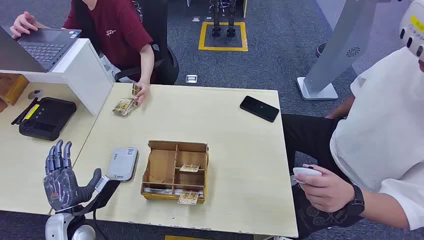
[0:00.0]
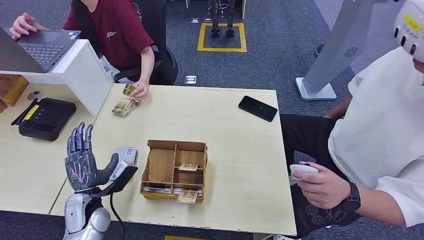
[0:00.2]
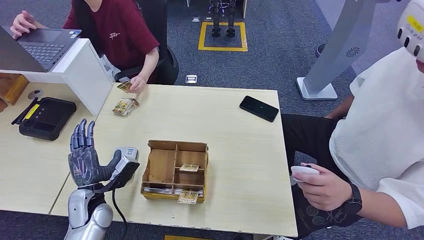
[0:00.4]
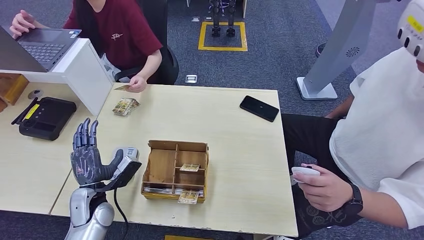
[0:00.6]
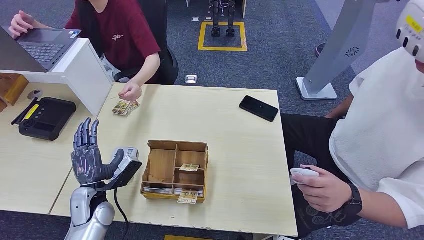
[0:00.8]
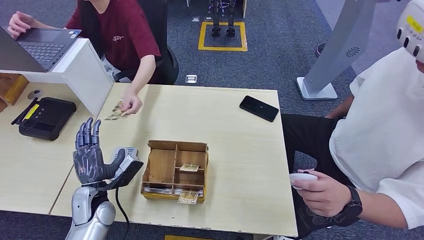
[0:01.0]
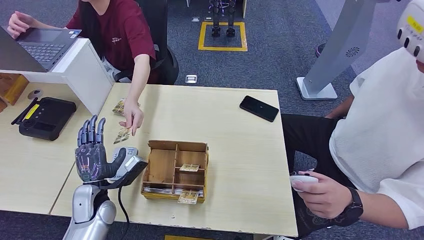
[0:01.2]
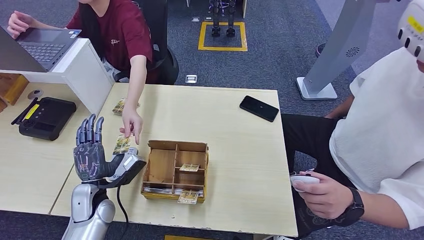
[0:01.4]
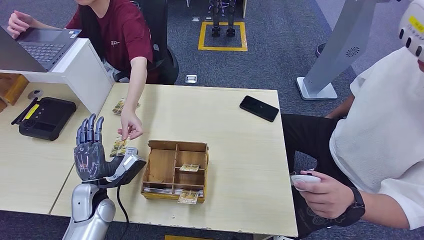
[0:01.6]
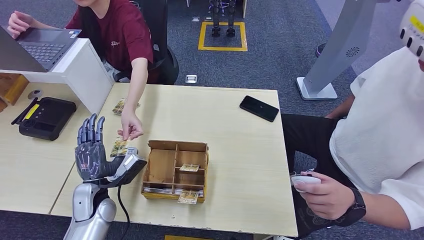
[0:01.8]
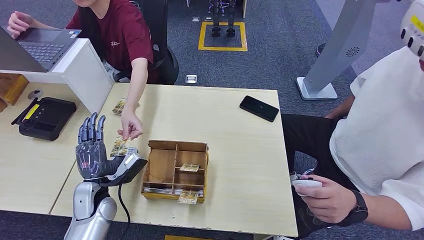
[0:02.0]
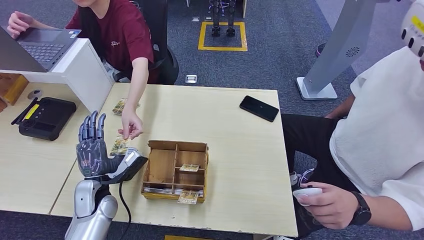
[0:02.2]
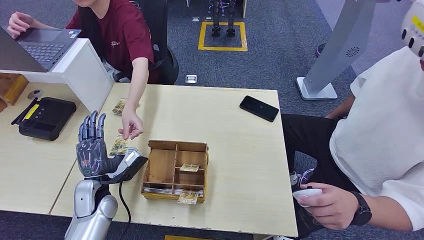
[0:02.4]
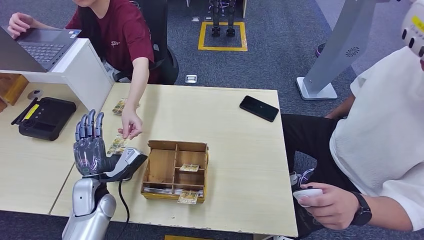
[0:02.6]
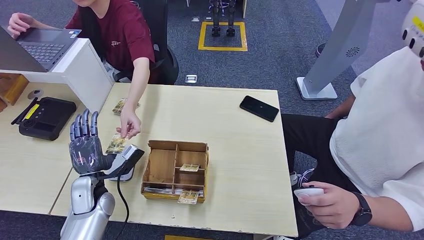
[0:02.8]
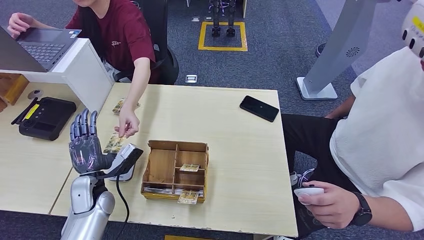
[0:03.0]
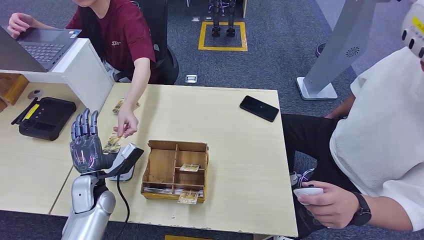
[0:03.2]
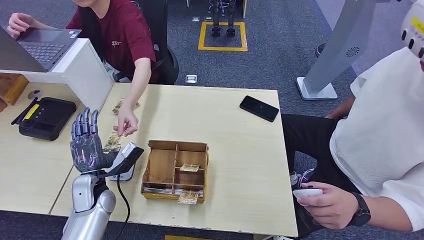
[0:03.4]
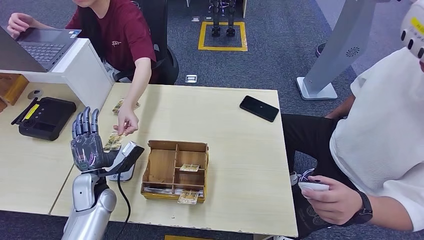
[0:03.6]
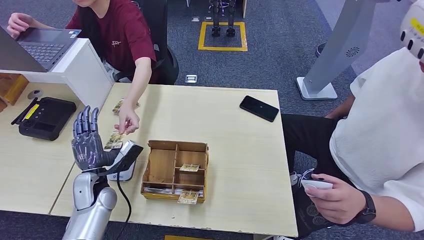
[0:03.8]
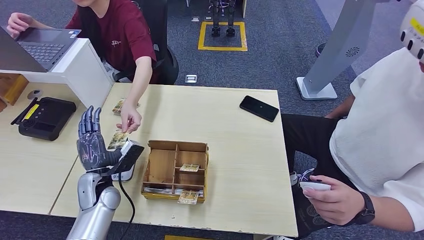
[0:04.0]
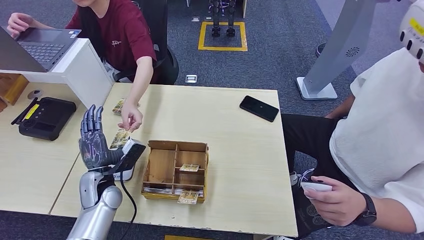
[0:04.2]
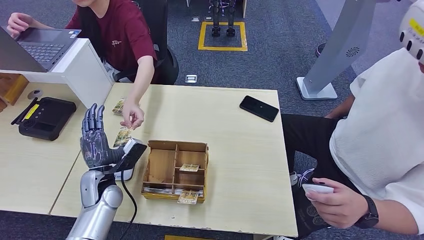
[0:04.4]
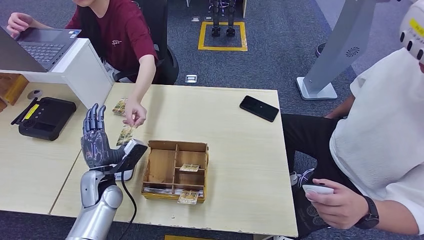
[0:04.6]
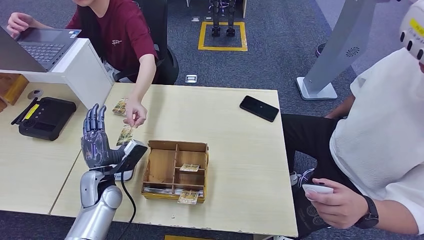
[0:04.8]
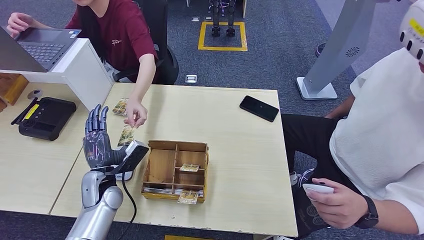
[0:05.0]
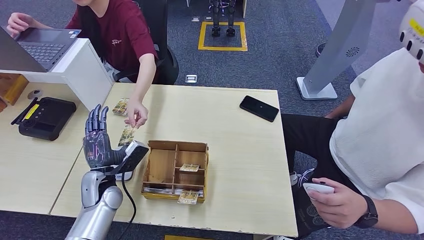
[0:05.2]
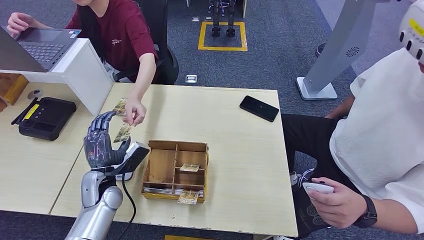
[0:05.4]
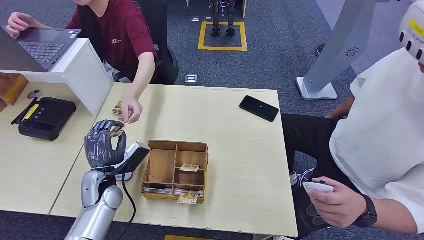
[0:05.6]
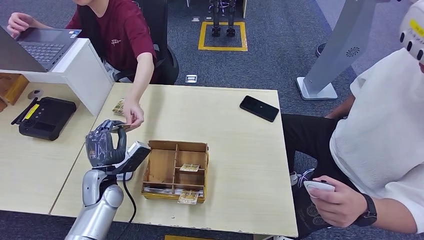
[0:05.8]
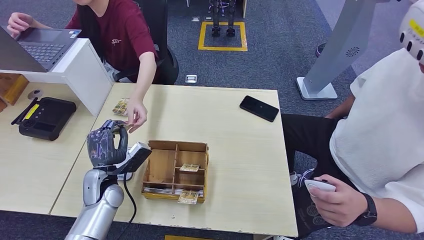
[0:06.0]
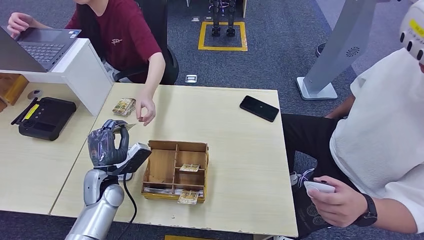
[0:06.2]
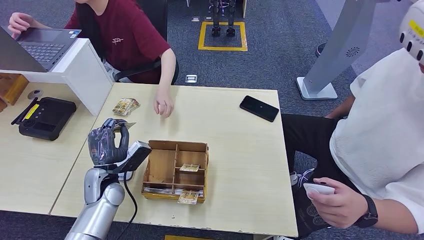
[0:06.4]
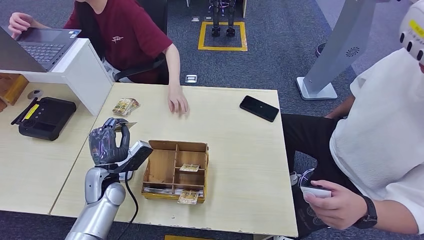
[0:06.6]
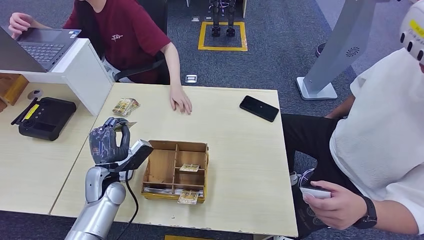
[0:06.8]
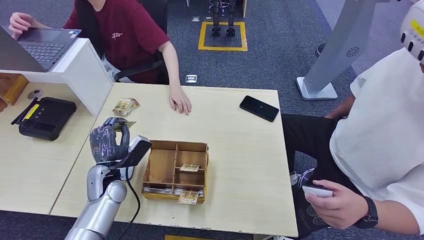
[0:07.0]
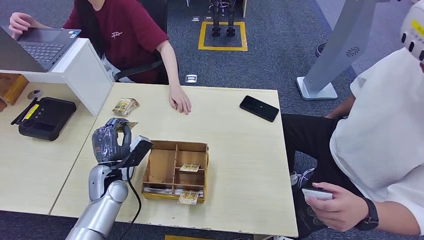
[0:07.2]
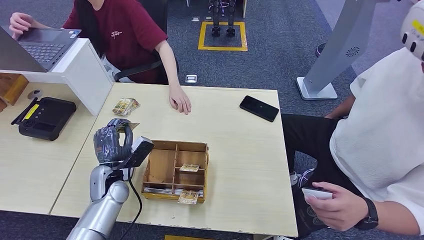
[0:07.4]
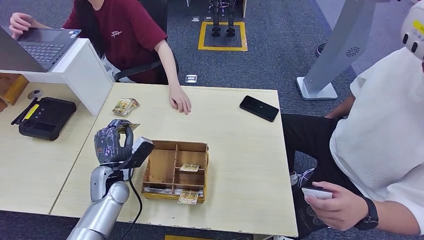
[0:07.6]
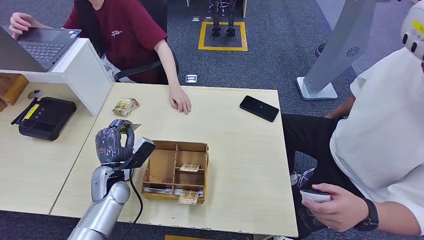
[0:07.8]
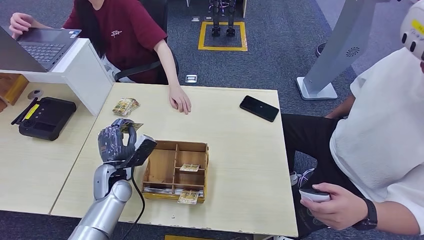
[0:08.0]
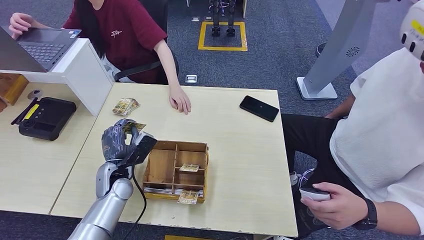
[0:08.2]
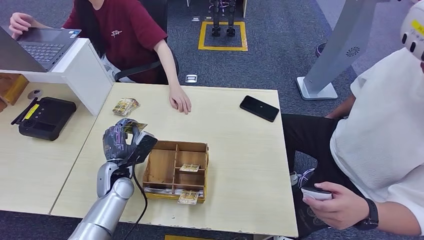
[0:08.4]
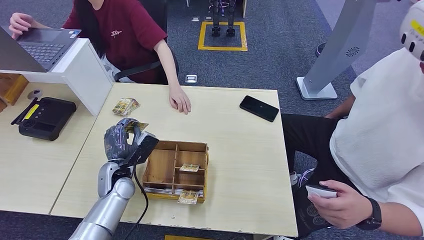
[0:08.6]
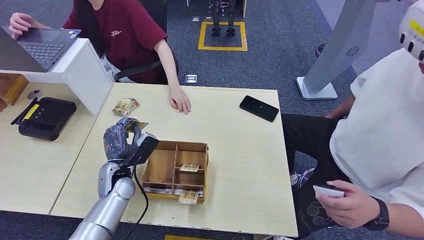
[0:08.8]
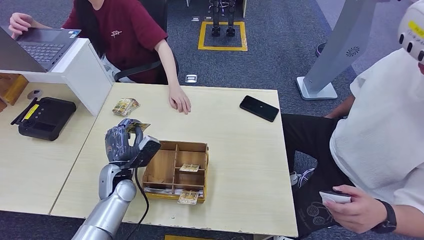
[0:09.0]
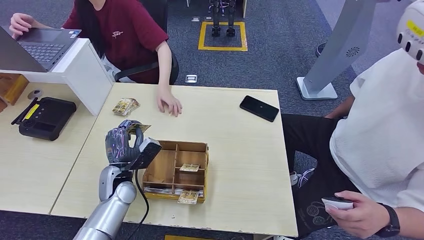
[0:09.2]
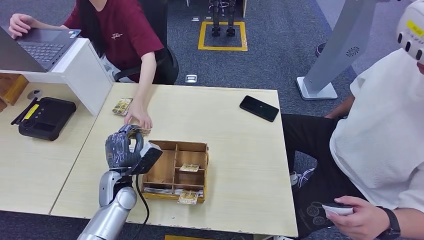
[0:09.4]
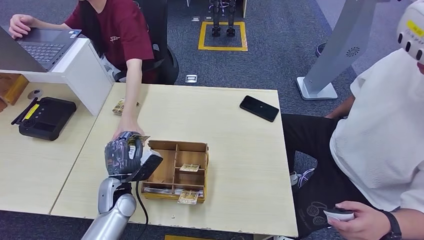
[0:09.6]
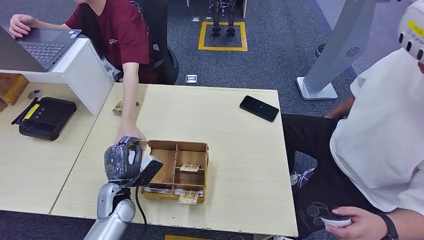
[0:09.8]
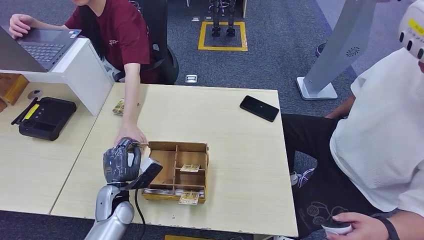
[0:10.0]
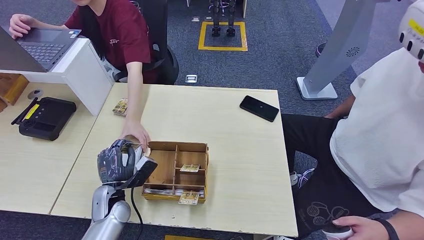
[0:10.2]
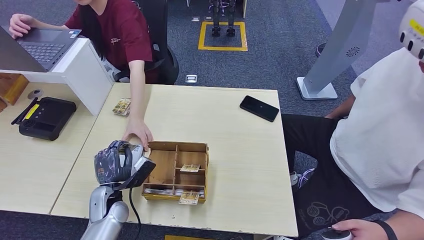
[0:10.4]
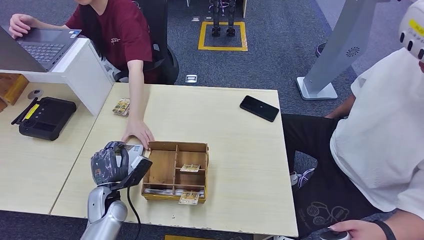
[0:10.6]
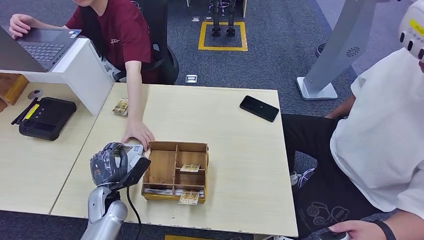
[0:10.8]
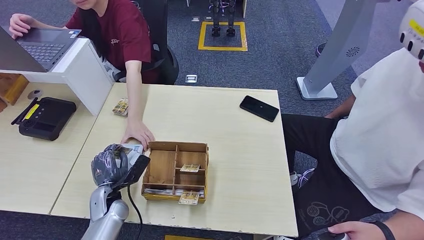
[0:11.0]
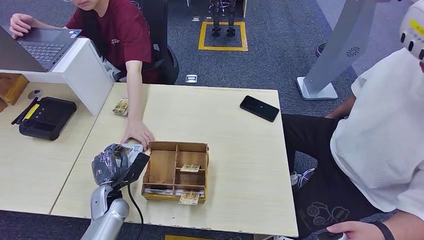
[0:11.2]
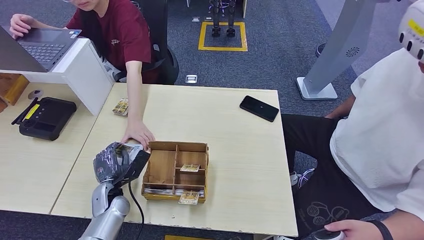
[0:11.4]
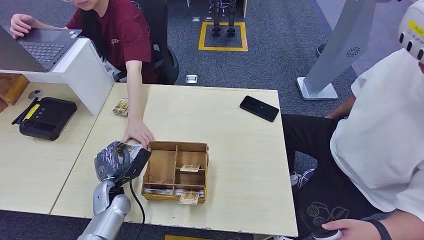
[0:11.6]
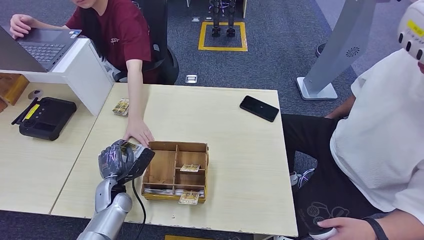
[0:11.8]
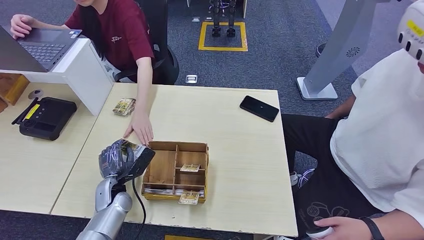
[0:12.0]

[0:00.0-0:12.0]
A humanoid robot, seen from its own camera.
Step, 0:00.0 to 0:06.0: Take the ID card from the person's hand.
0:01.6 to 0:03.0: There are only small adjustments of the hands.
0:03.0 to 0:04.4: There are only small adjustments of the hands.
0:04.4 to 0:06.0: There are only small adjustments of the hands.
0:06.0 to 0:07.6: The hands make only small movements.
0:07.6 to 0:09.0: The hands stay close to where they were, moving slightly.
0:09.0 to 0:10.4: The left hand ends up approximately 5 cm from where it was.
0:10.4 to 0:12.0: The hands stay close to where they were, moving slightly.

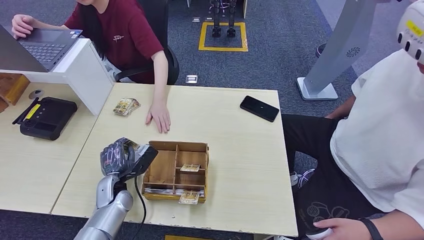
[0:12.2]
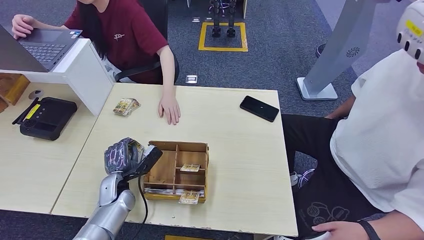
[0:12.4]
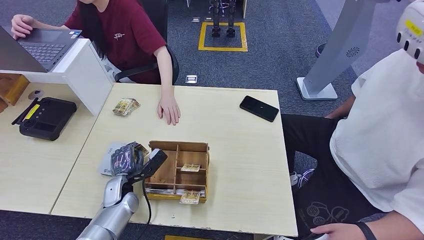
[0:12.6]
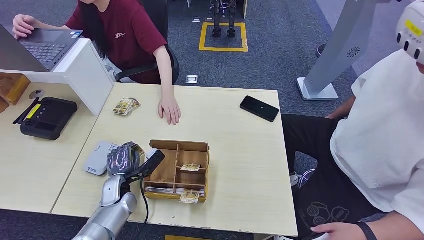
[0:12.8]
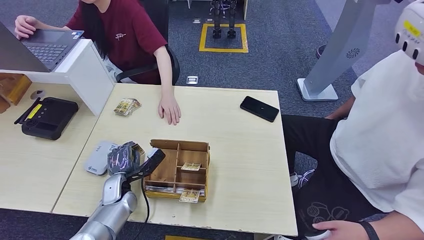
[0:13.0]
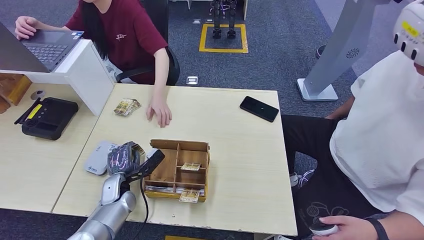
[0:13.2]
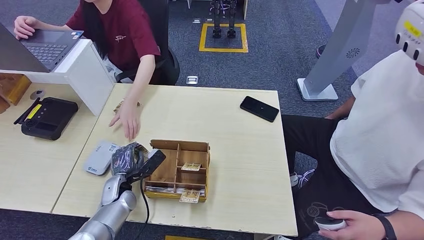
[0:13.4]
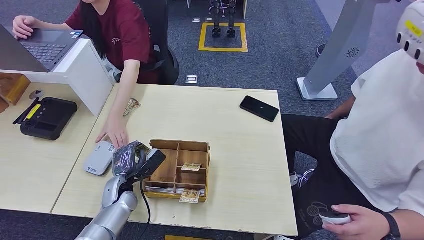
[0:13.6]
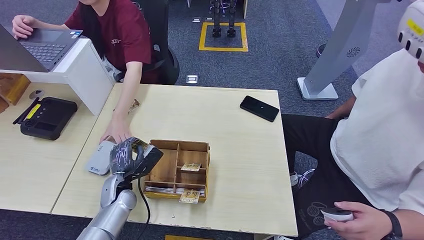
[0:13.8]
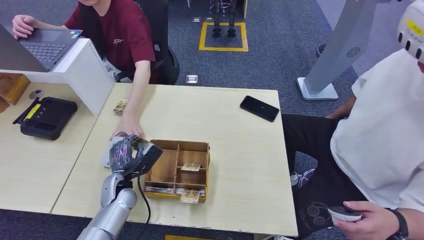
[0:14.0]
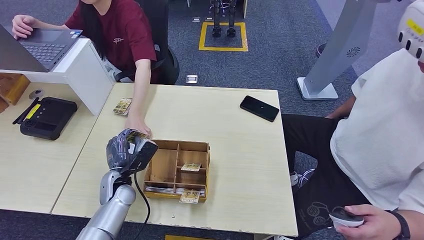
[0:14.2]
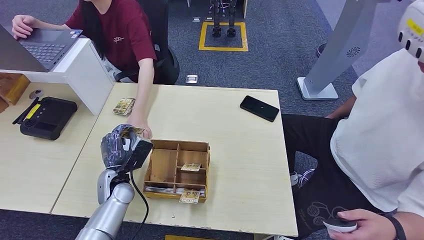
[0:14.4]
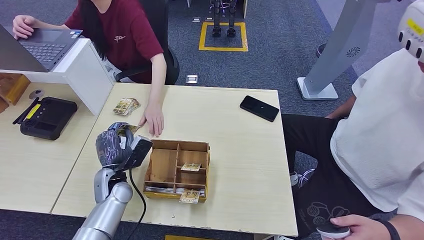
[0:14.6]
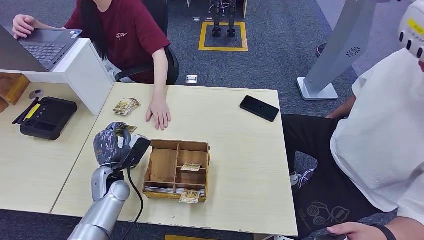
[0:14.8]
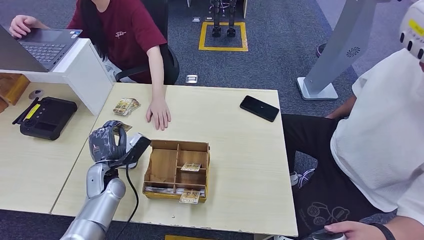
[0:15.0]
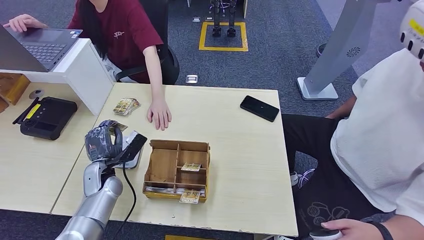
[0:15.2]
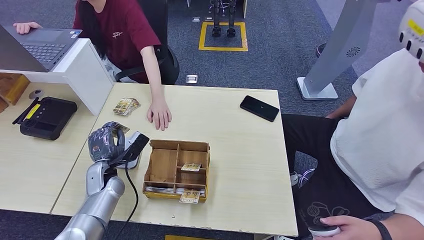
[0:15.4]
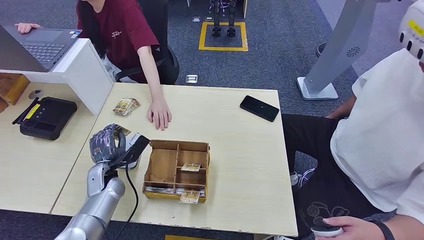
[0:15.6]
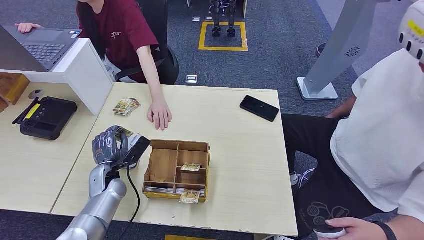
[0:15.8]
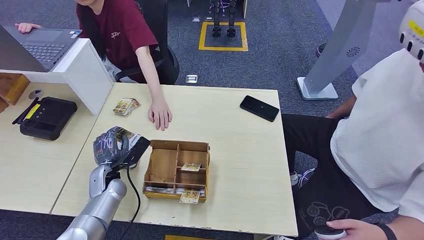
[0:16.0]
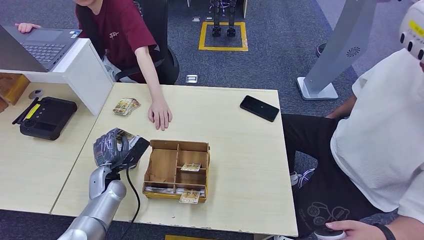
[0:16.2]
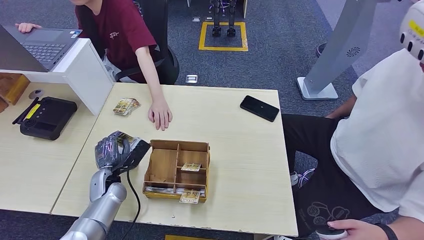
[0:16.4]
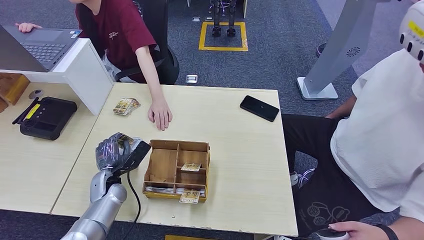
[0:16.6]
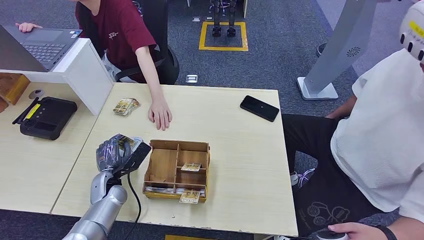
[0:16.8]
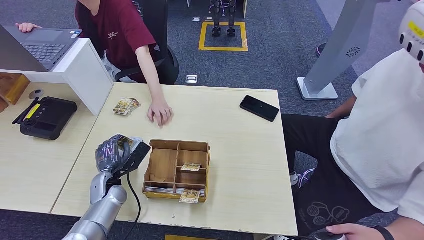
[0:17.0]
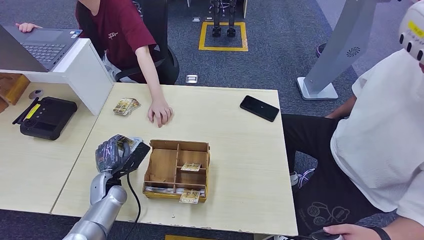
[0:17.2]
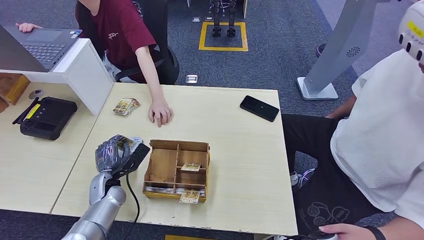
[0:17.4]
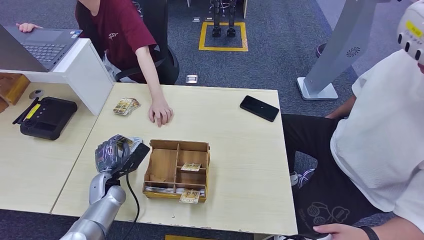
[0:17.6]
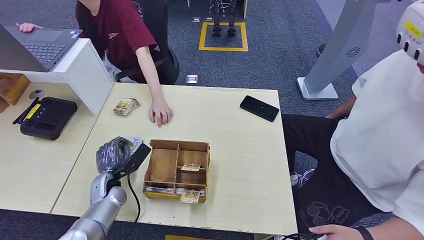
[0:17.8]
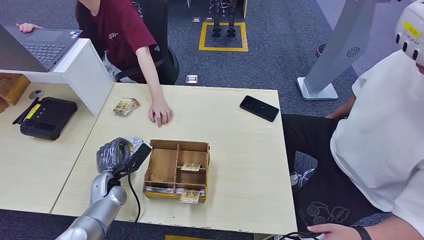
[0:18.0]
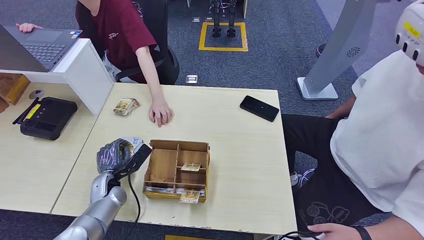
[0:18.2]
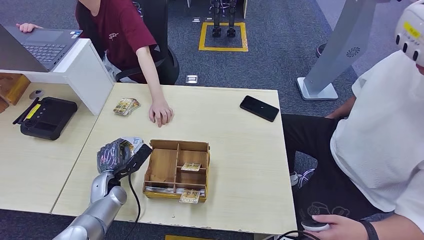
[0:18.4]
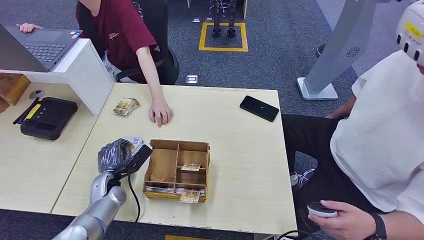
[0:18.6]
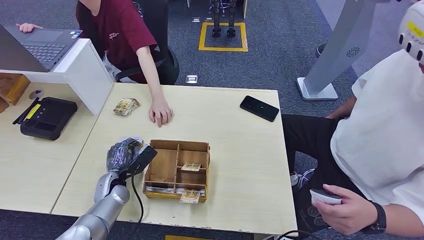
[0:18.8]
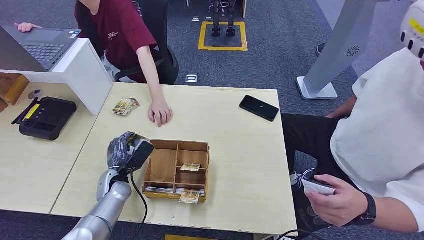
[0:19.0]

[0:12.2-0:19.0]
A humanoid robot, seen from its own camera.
0:12.2 to 0:13.6: The hands move only a little.
0:13.6 to 0:15.0: The left hand shifts about 5 cm upward.
0:15.0 to 0:17.6: The hands make only small movements.
0:17.6 to 0:19.0: The hands make only small movements.
